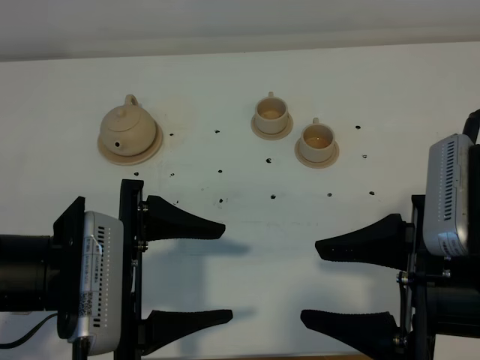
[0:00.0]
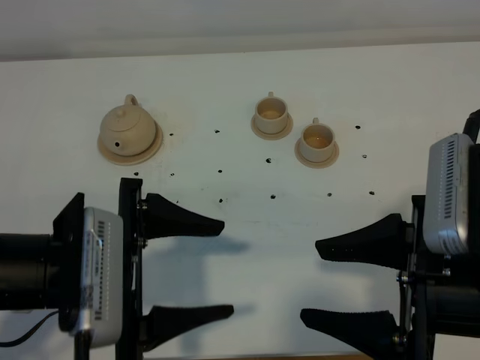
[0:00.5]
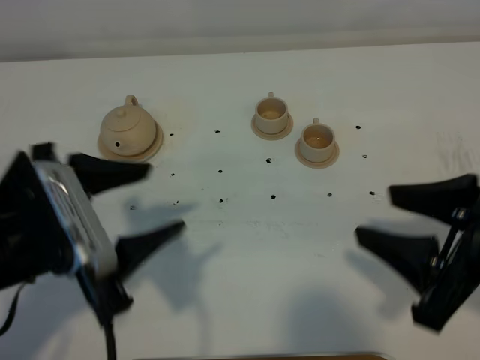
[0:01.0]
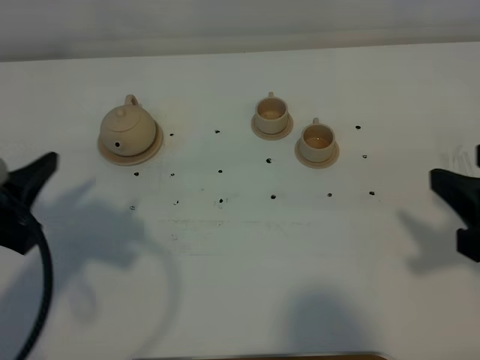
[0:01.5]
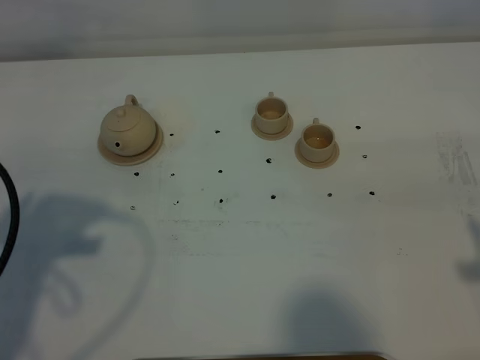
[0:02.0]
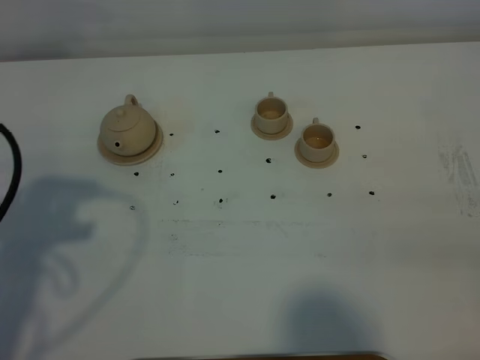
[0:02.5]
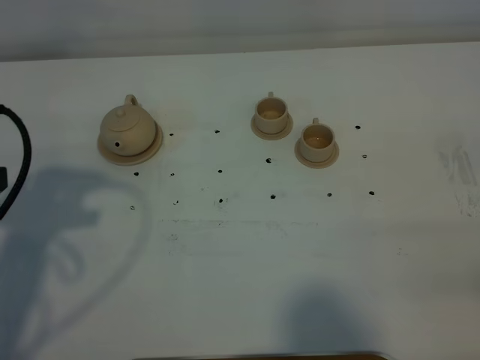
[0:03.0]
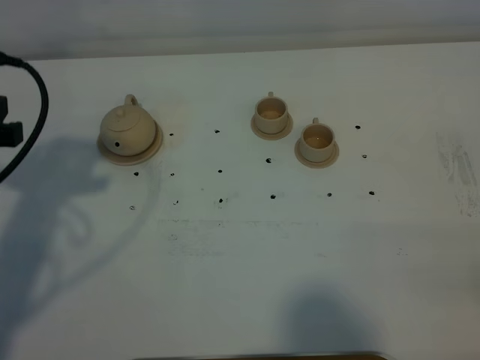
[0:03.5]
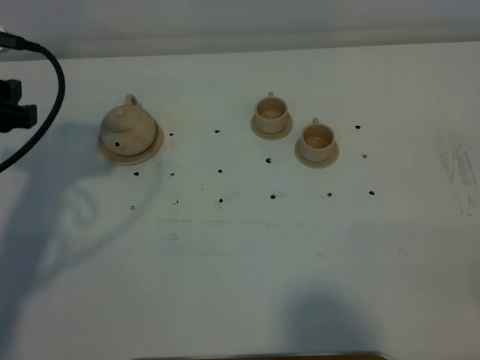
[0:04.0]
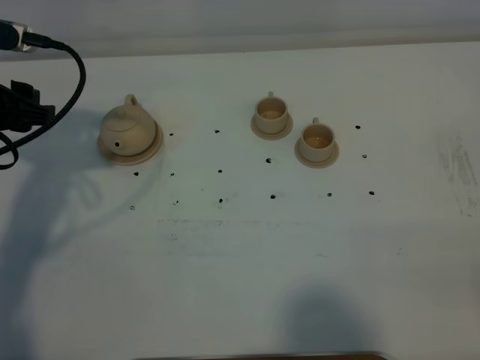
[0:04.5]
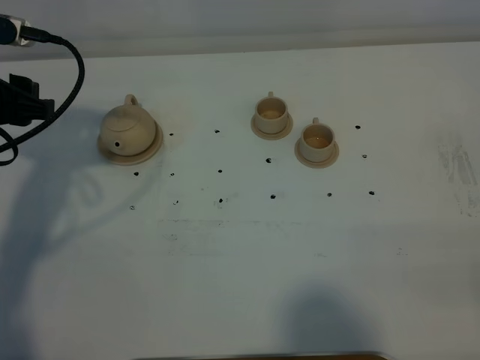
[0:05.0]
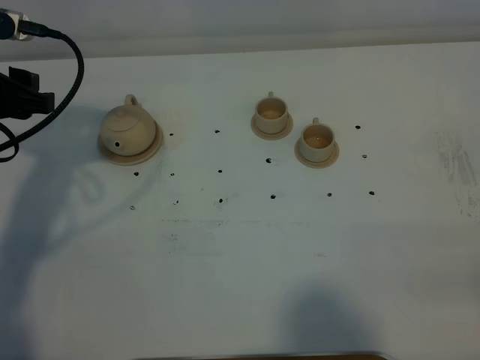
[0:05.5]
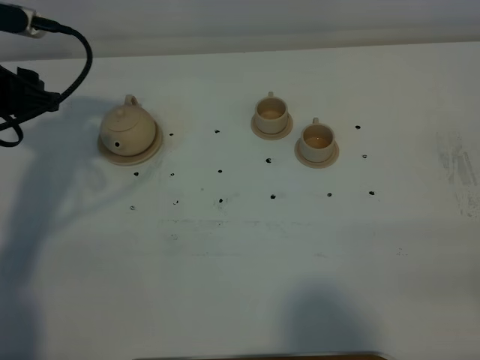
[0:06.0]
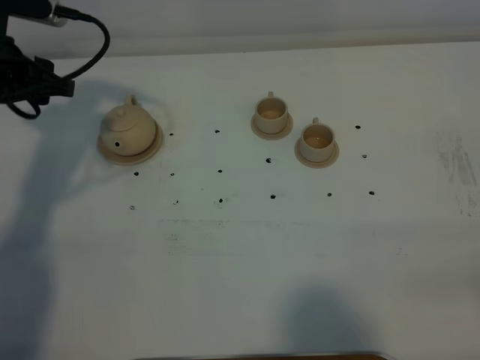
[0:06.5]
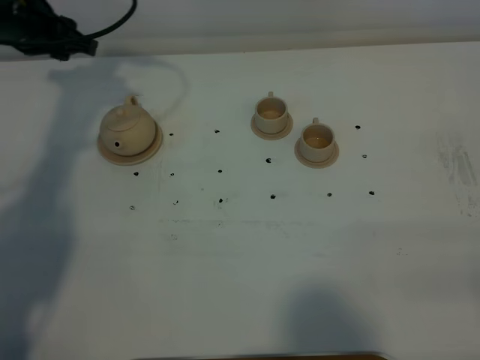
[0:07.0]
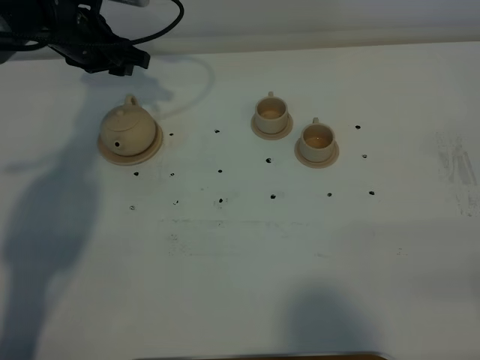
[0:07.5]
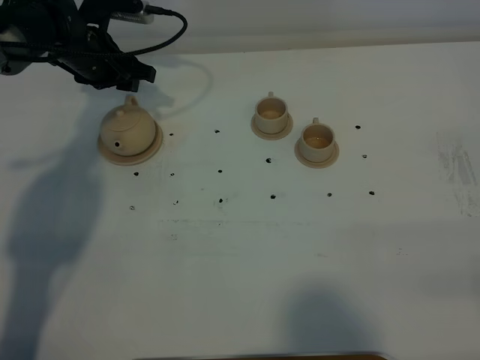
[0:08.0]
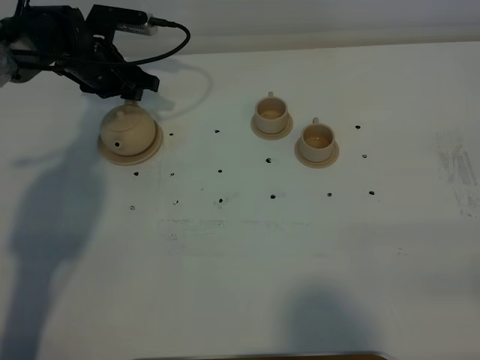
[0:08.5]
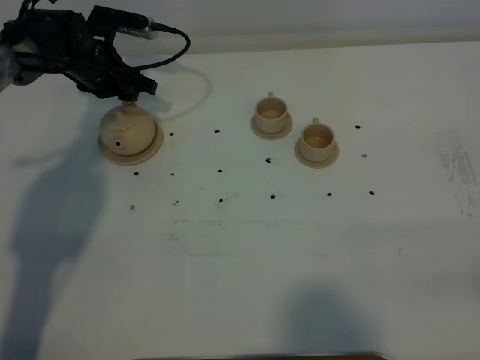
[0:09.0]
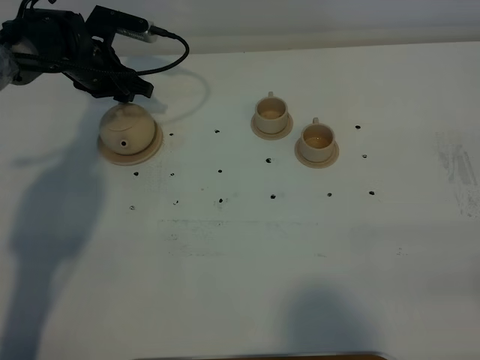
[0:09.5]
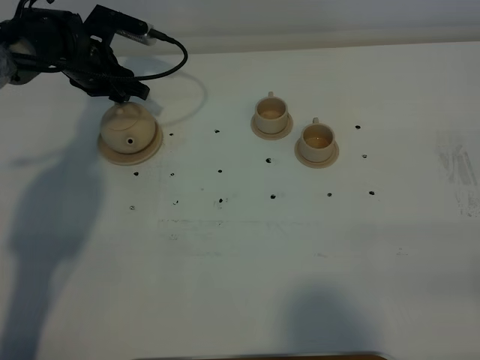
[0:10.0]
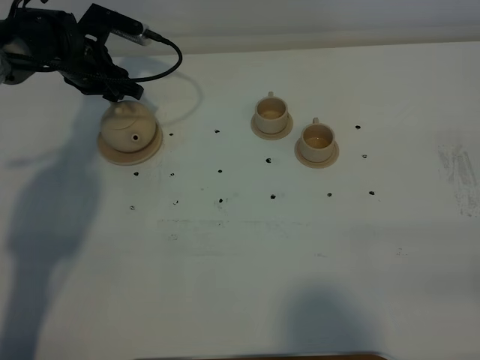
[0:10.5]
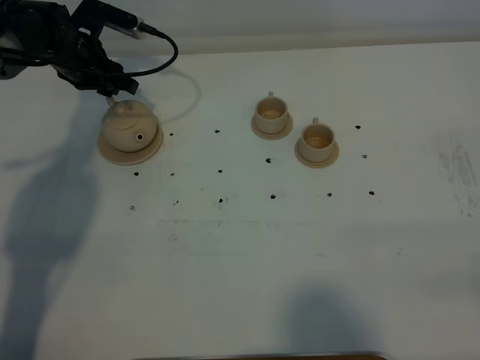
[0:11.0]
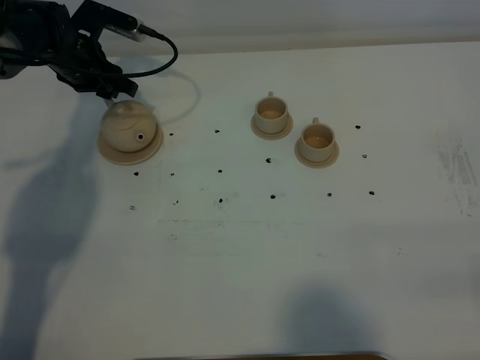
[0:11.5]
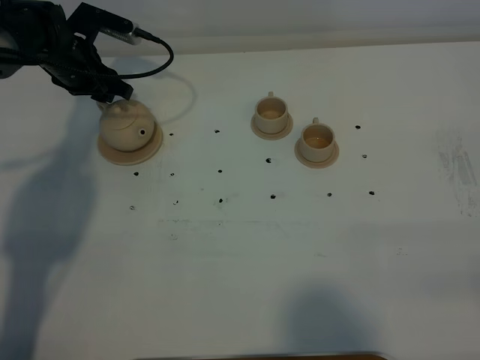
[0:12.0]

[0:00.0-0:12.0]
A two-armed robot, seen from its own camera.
Task of the whole recording: grasp the brown teapot and pour the tea into the two brown teacups one by one, put the brown teapot back in its original place.
0.0 to 2.0 s: The left gripper moves to the left and upward, some 15 cm. Meanwhile the right gripper shifts some 10 cm to the right.
2.0 to 4.0 s: The left gripper travels forward by some 10 cm.
4.0 to 6.0 s: The left gripper heads forward, covering roughly 5 cm.
6.0 to 8.0 s: The left gripper heads forward and downward, covering some 20 cm.
8.0 to 12.0 s: The grippers move only a little.

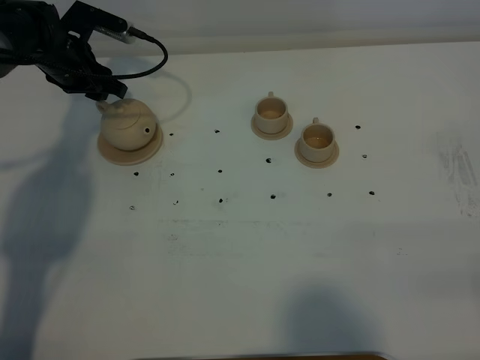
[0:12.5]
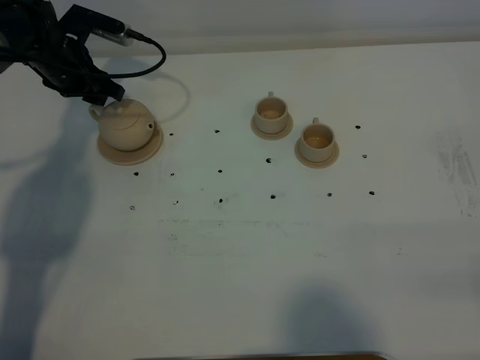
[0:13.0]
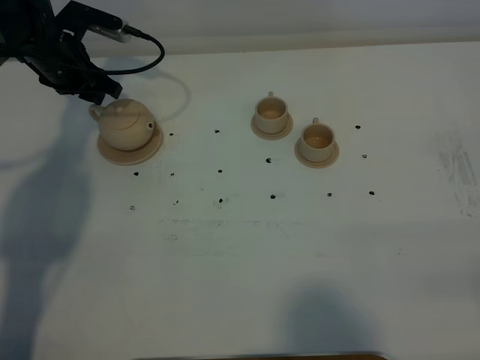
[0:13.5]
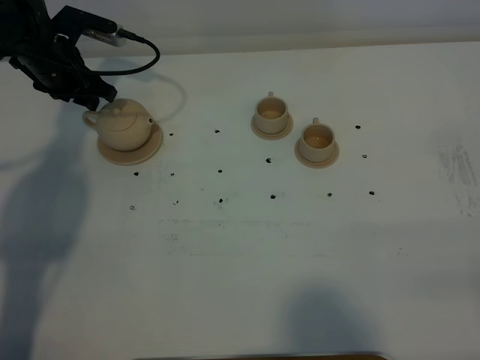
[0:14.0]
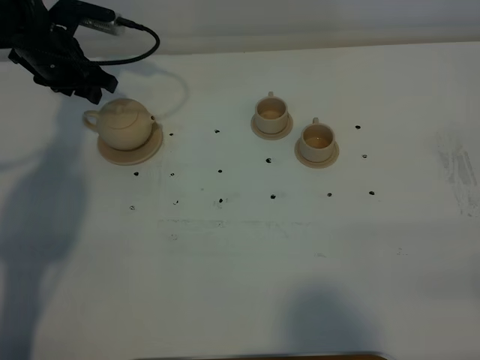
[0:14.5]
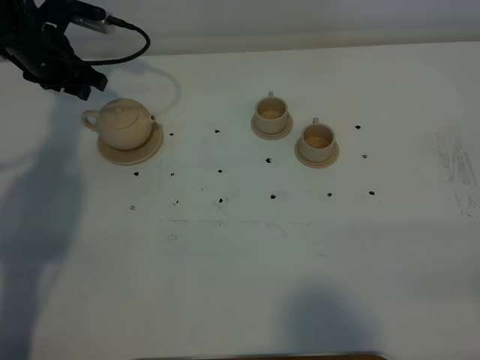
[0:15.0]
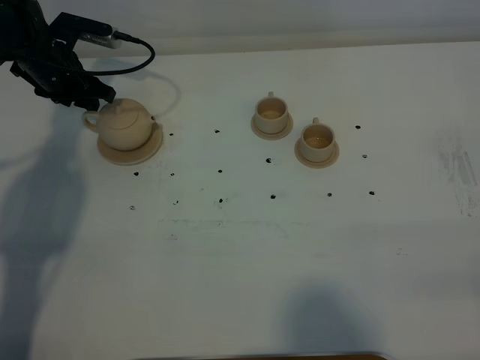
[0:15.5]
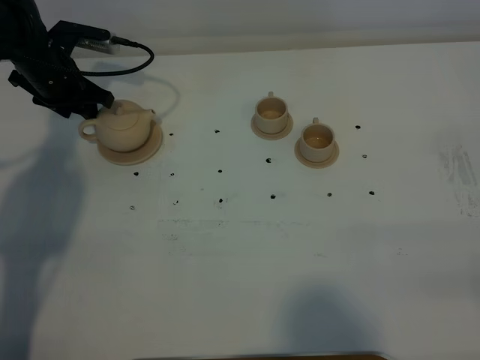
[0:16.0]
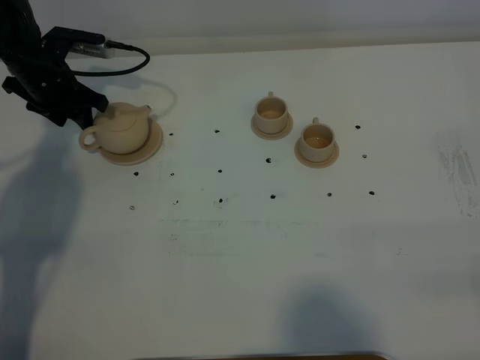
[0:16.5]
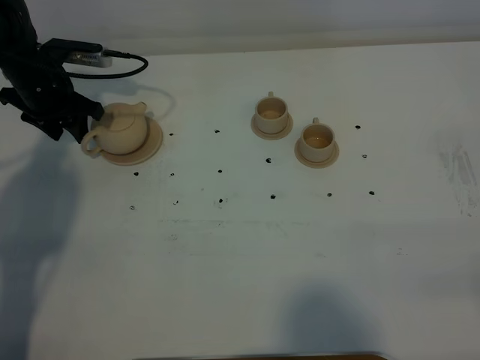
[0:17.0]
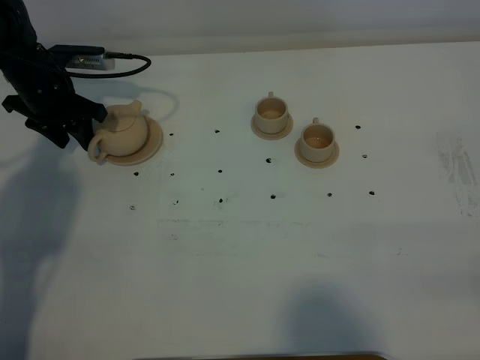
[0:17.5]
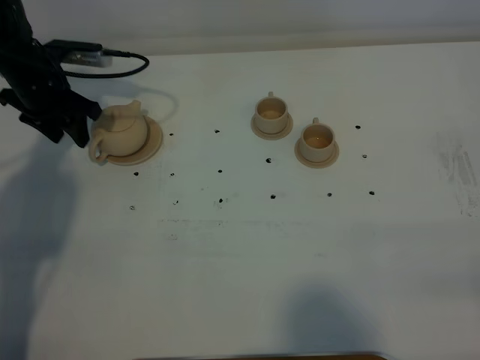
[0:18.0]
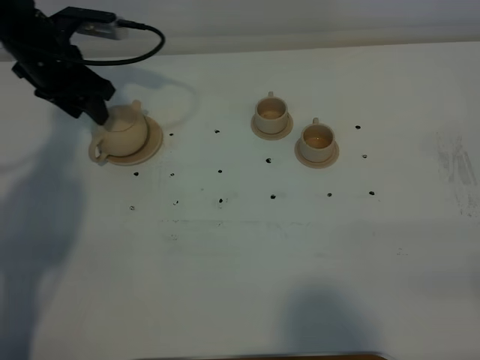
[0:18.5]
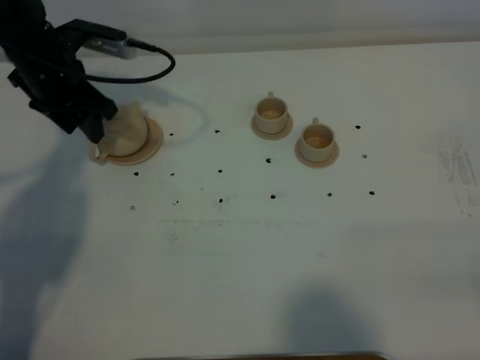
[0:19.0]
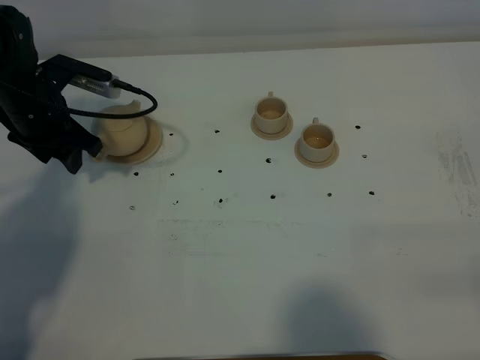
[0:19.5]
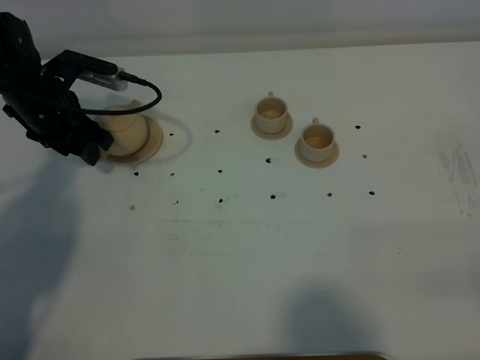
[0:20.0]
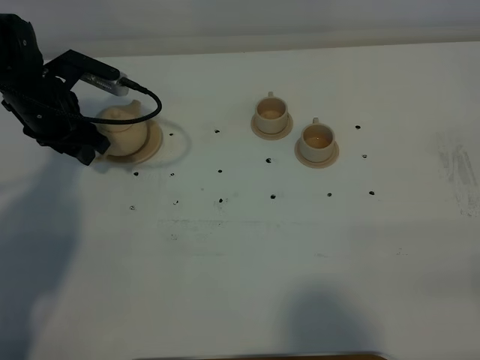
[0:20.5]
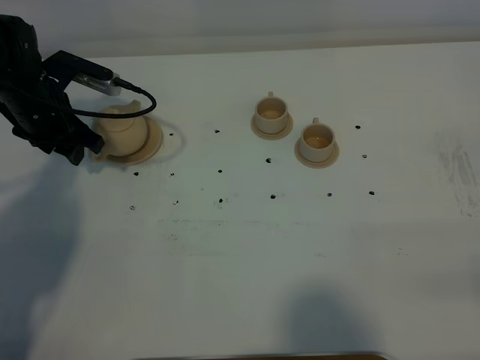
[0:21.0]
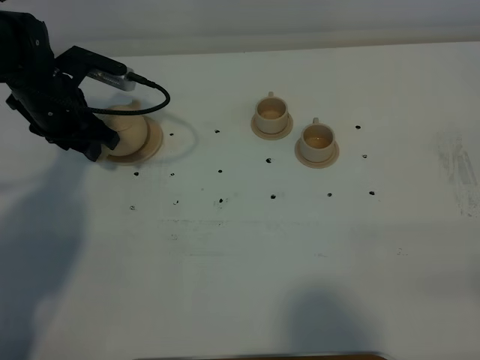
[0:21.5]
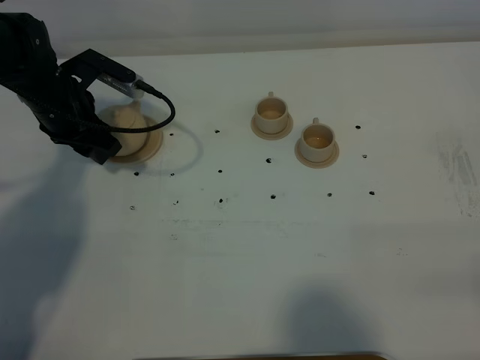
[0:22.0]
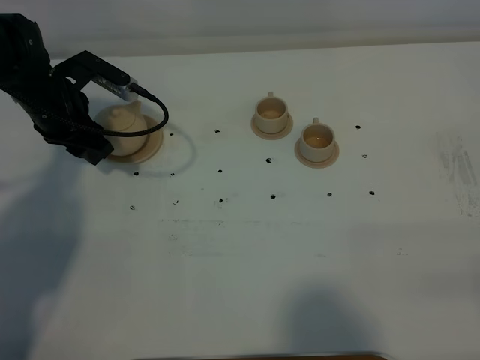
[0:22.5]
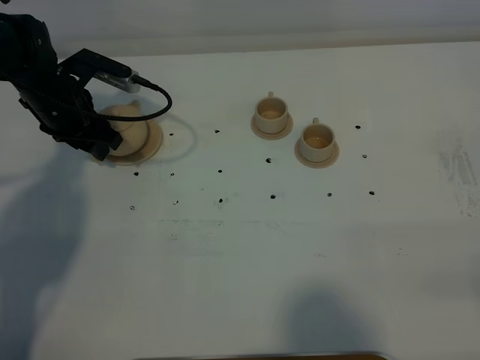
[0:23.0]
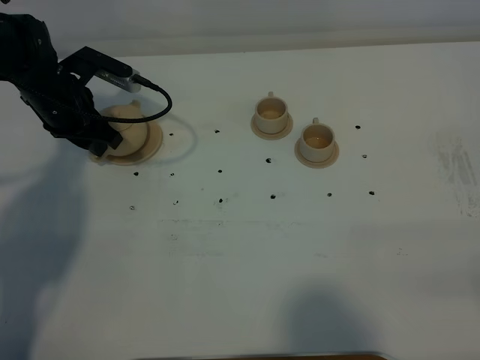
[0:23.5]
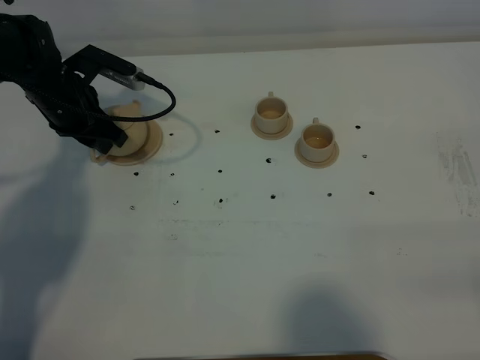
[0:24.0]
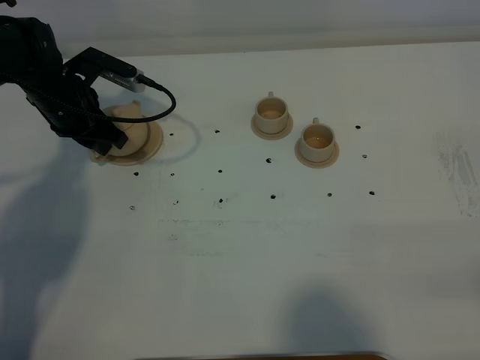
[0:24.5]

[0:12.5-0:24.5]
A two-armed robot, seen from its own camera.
Task of the whole recording: grasp the brown teapot and pour the tea into the two brown teacups one by one, put the brown teapot back in its original place.
12.5 to 14.5 s: The grippers make only small movements.
14.5 to 16.5 s: There are only small adjustments of the grippers.
16.5 to 18.5 s: The left gripper travels upward by roughly 5 cm.
18.5 to 20.5 s: The left gripper moves backward, some 5 cm.
20.5 to 22.5 s: The grippers move only a little.
22.5 to 24.5 s: The left gripper closes its fingers.

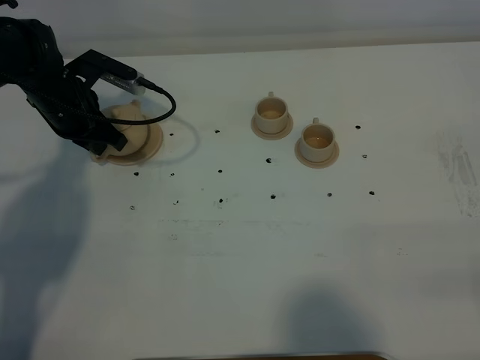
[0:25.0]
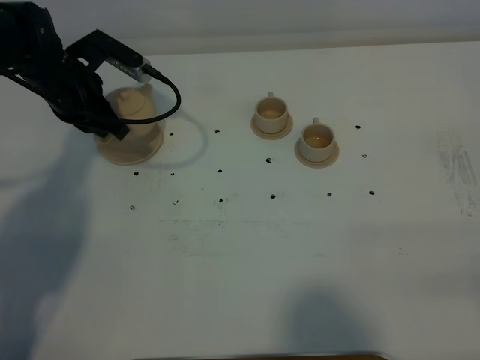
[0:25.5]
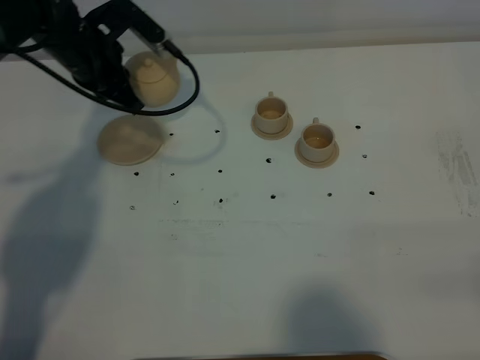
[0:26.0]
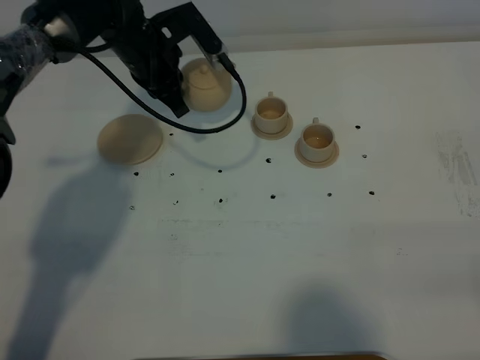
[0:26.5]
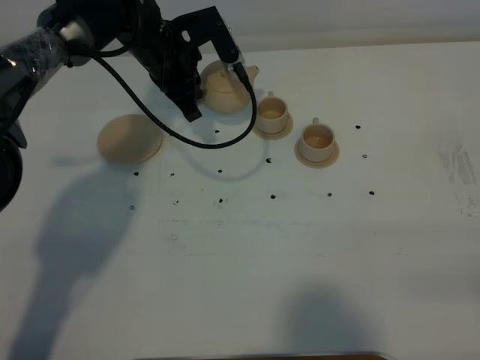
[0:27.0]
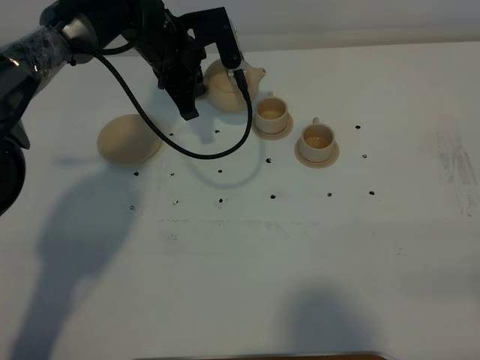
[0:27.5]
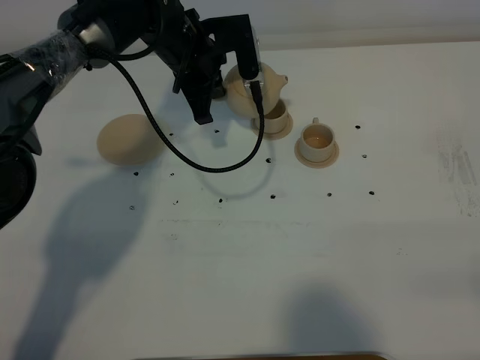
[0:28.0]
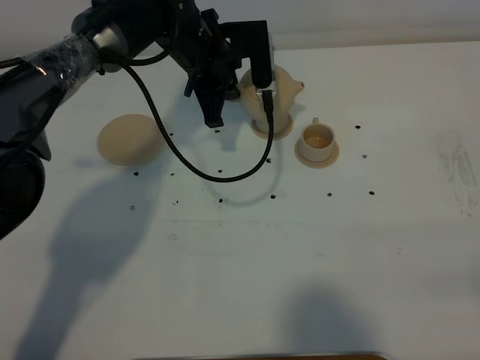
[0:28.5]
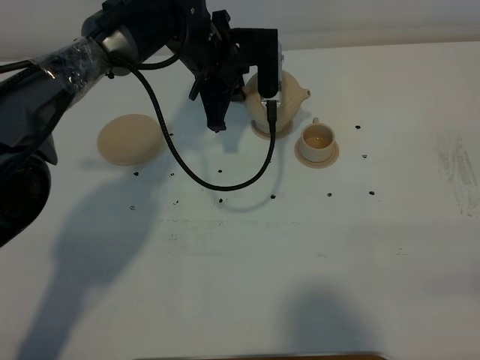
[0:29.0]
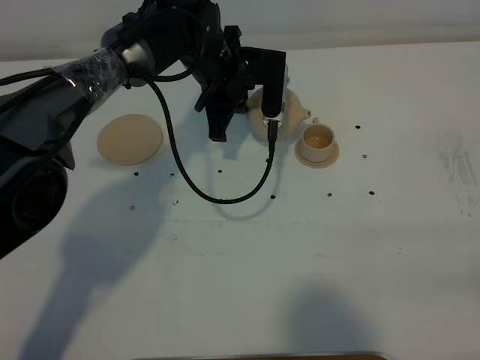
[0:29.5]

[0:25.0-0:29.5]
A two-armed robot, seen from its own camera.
Task of the whole recording: grasp the brown teapot and pour the tea into the two brown teacups one by one, put the brown teapot back in its original place.
25.0 to 27.0 s: The left gripper is displaced to the right by about 15 cm.
27.0 to 29.5 s: The left gripper heads to the right, covering about 5 cm.
